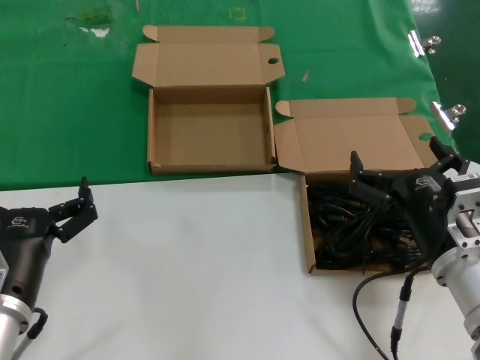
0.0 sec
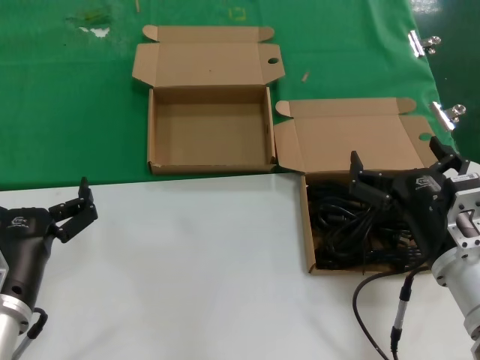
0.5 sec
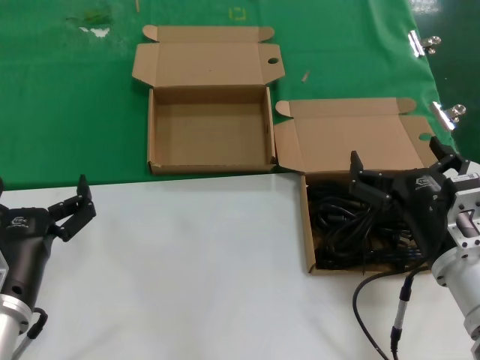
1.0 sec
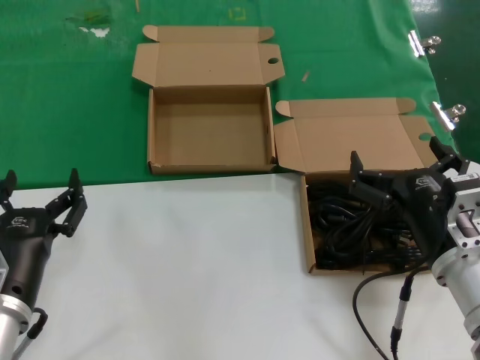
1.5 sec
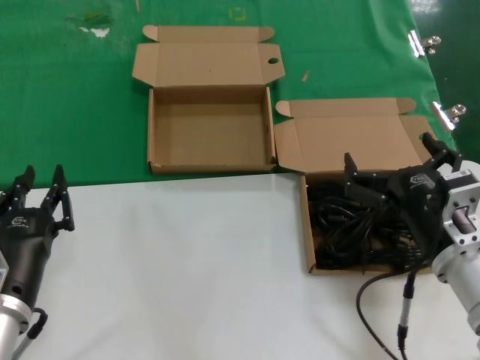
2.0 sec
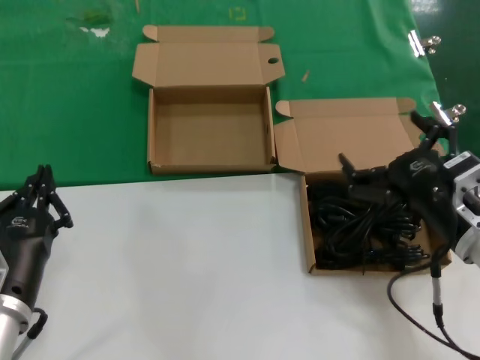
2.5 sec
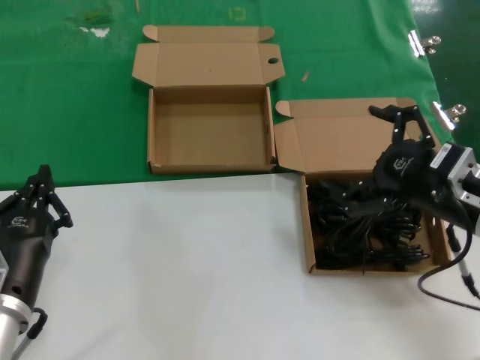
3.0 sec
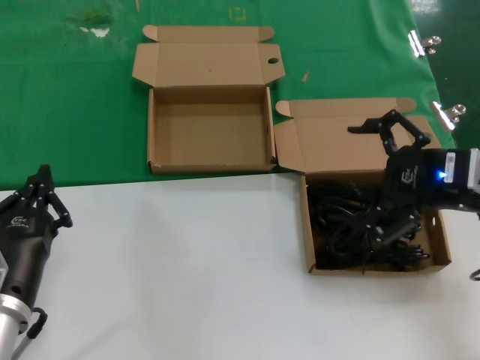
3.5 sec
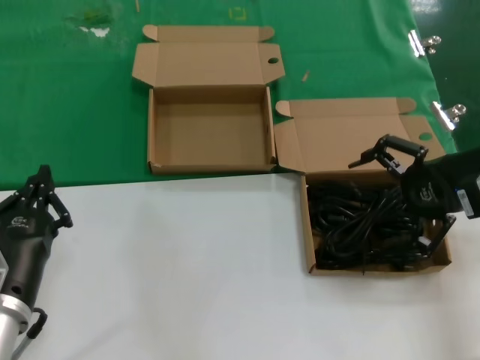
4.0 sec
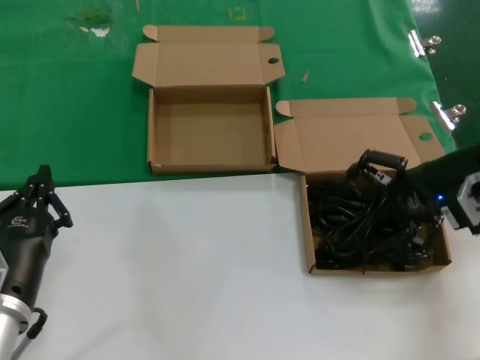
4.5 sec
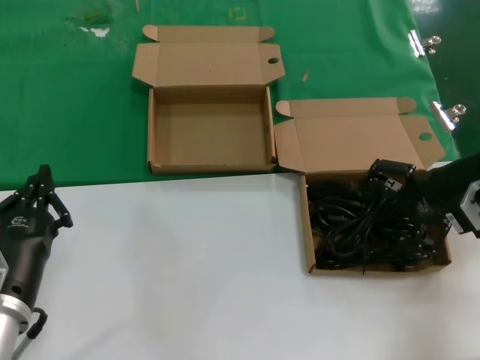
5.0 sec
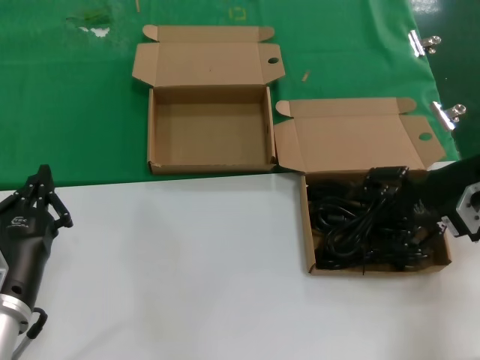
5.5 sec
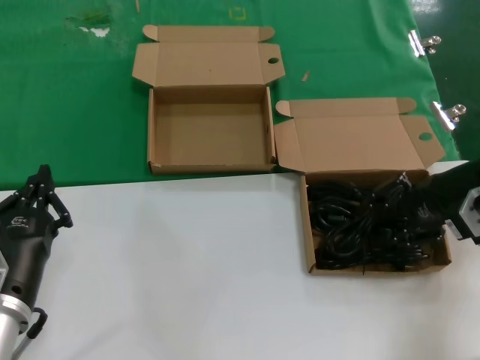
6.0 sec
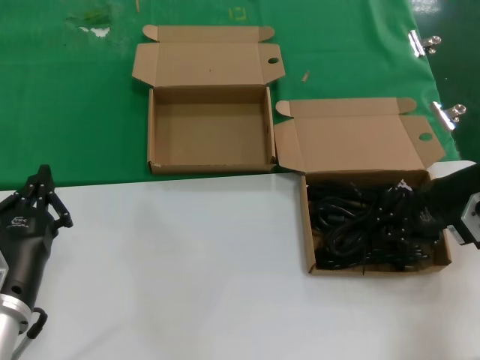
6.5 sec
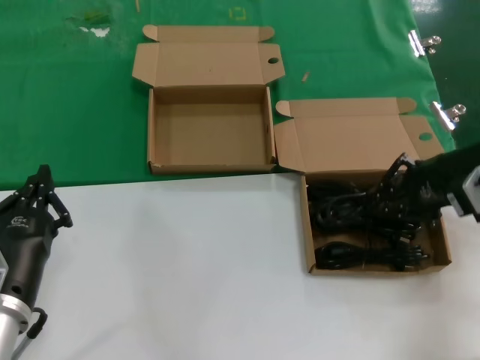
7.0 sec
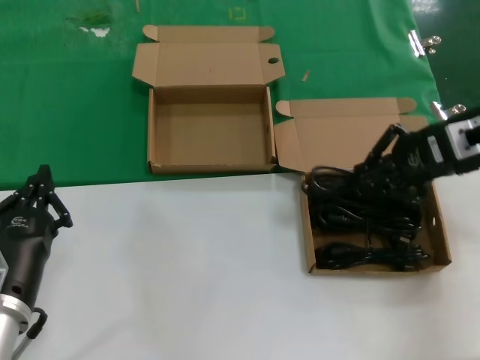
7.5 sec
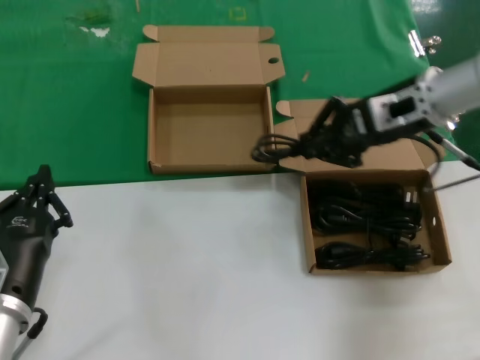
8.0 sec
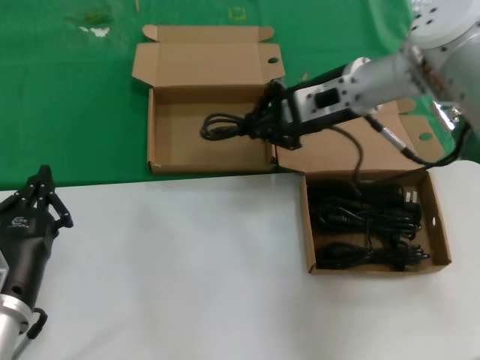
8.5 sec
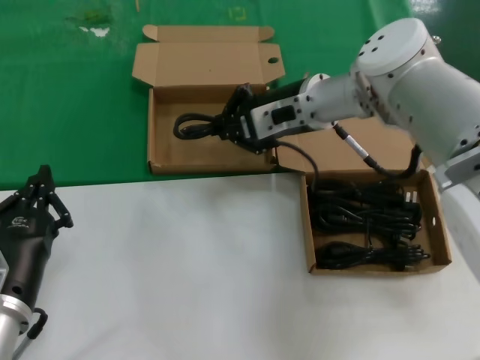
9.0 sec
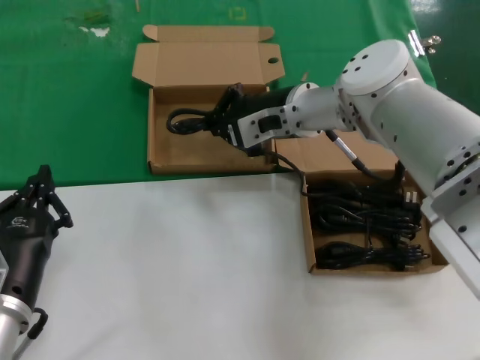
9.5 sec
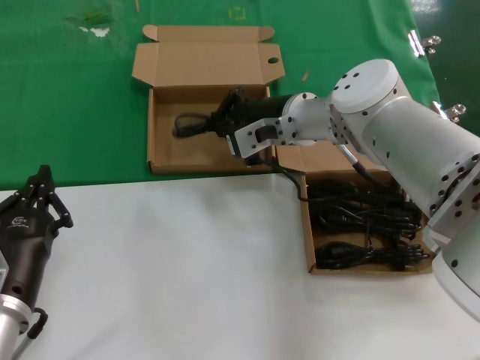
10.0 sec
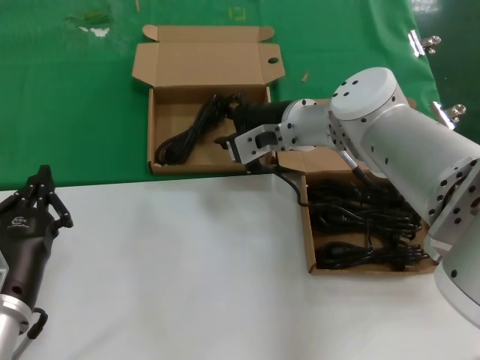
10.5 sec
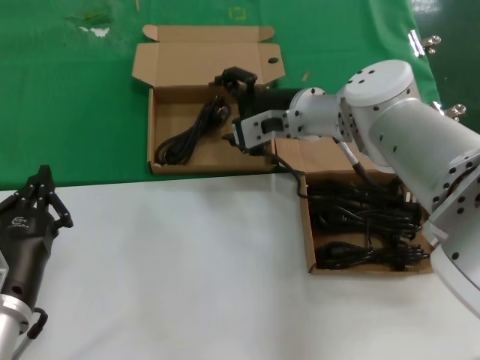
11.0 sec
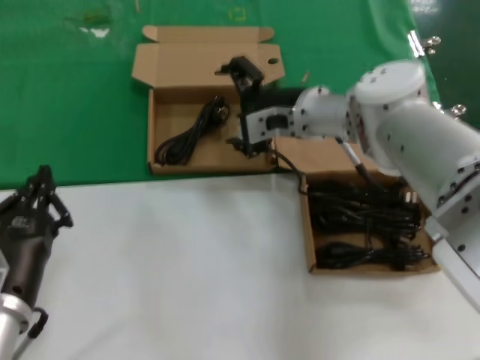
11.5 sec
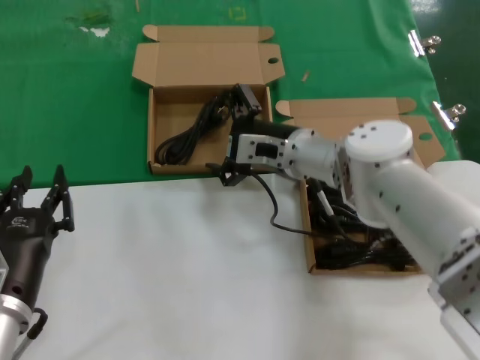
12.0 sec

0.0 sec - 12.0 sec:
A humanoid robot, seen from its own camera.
Task of the whole recording: take the parts from the box containing them and put them into an empty box.
Step, 0.0 sec - 6.5 sec: Grasp the data cable.
Step, 7.0 sec - 10.0 sec: Place the data cable in the another box.
0.0 sec - 2.0 sec: The two hands keep their place.
2.0 sec - 4.0 sec: The right hand moves upward, to the right and forward, about 20 cm.
4.0 sec - 6.0 sec: The right hand moves downward and forward, roughly 10 cm.
6.0 sec - 8.0 sec: The right hand is displaced to the left, upward and forward by roughly 15 cm.
8.0 sec - 10.0 sec: The right hand travels to the left and downward by some 20 cm.
10.0 sec - 12.0 sec: The right hand is displaced downward by approximately 5 cm.

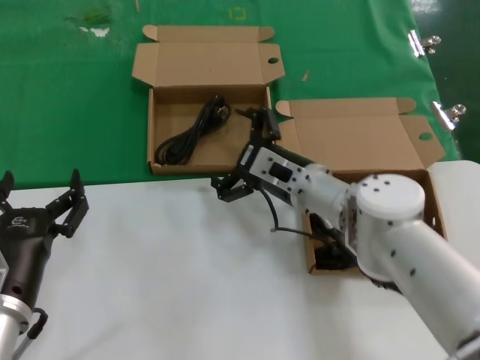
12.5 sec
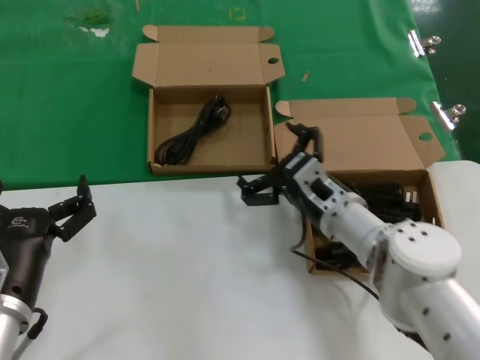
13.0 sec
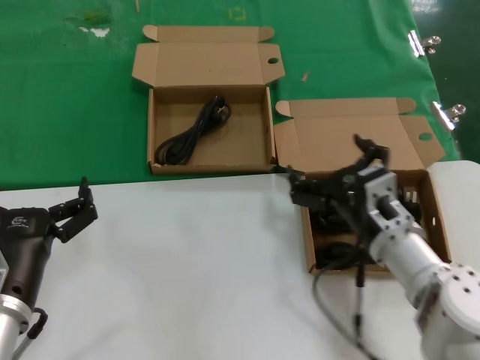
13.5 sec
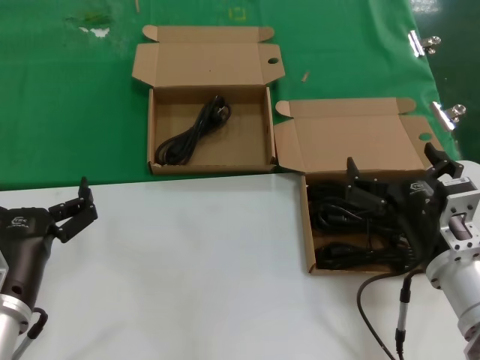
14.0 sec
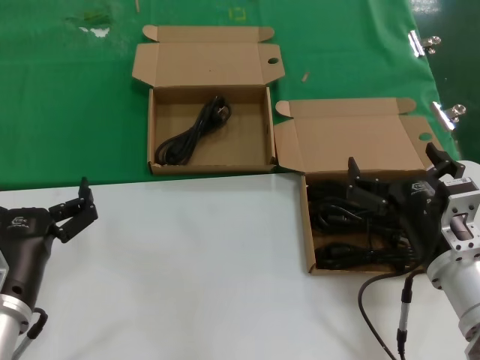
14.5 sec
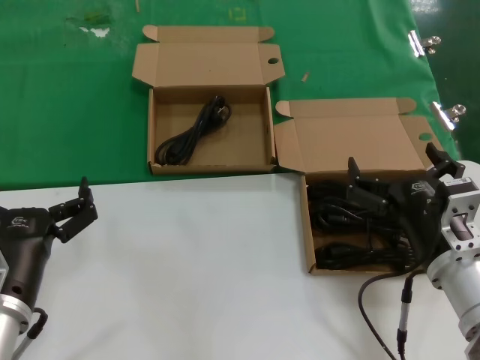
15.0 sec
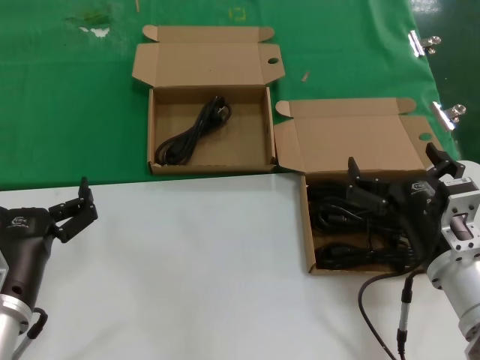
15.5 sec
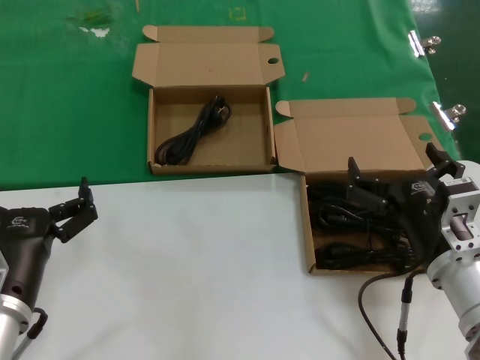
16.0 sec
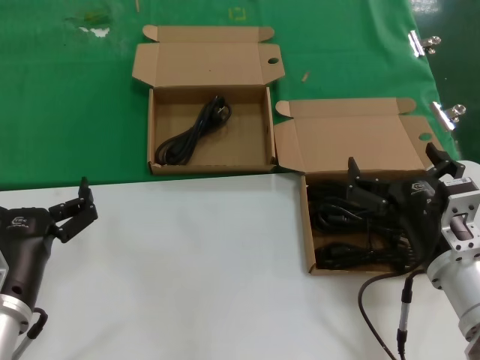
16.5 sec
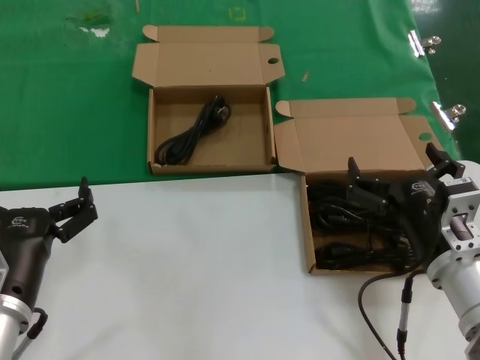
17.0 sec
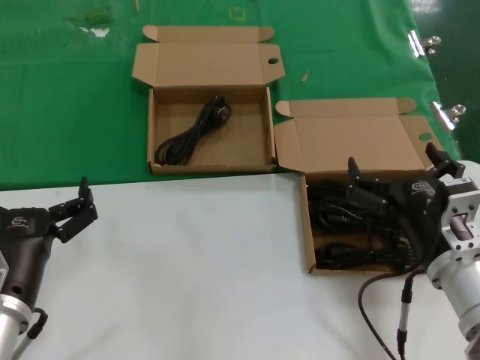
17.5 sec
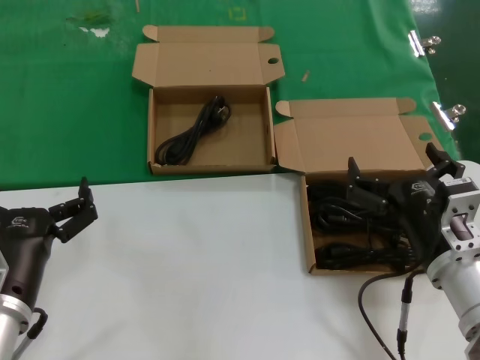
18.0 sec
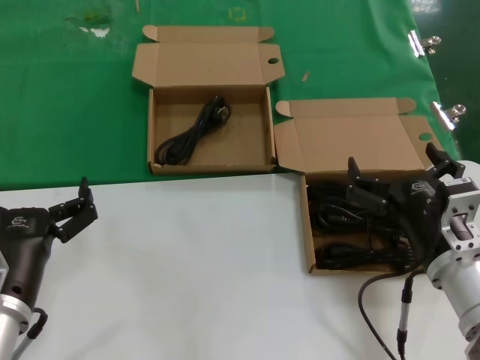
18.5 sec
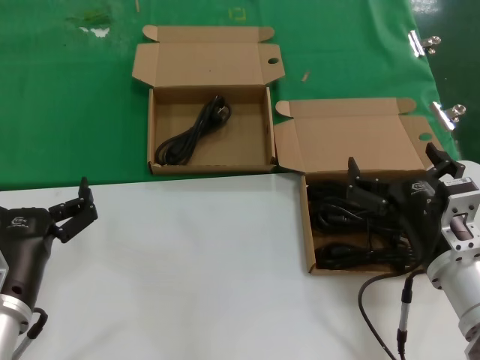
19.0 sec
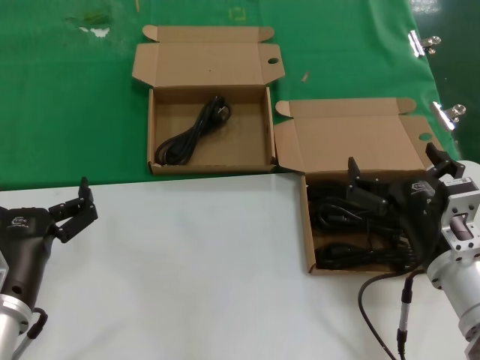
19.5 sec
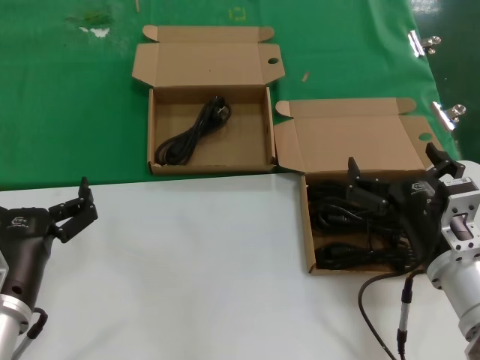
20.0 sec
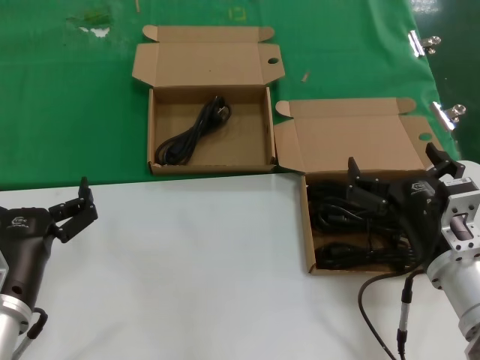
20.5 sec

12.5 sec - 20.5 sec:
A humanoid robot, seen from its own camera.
Task of the whole recording: take the parts from the box containing them and put them into an empty box.
12.5 sec - 14.5 sec: The right hand goes some 20 cm backward and to the right.
14.5 sec - 20.5 sec: The two hands keep their place.

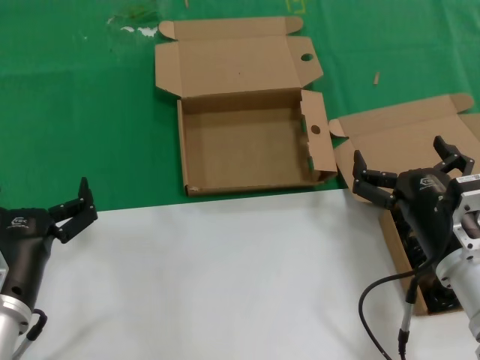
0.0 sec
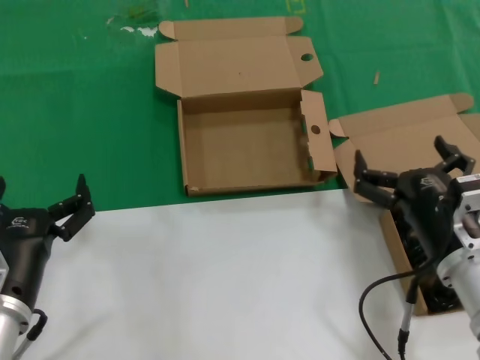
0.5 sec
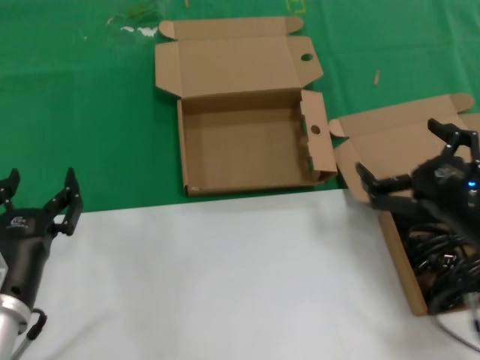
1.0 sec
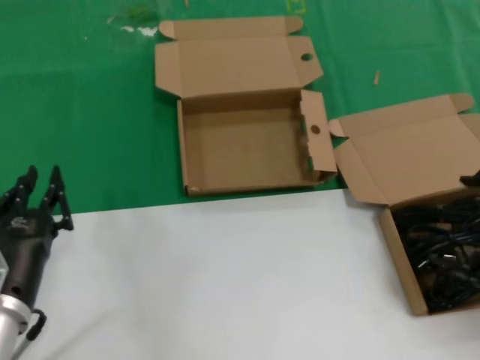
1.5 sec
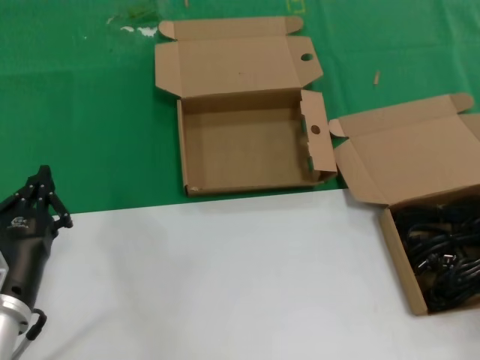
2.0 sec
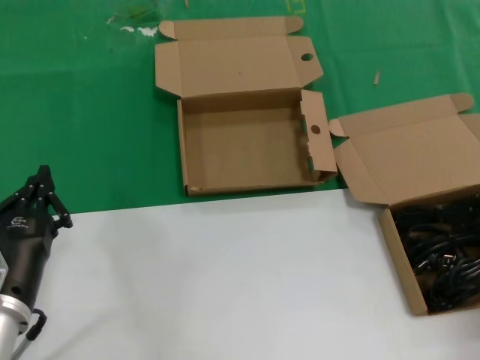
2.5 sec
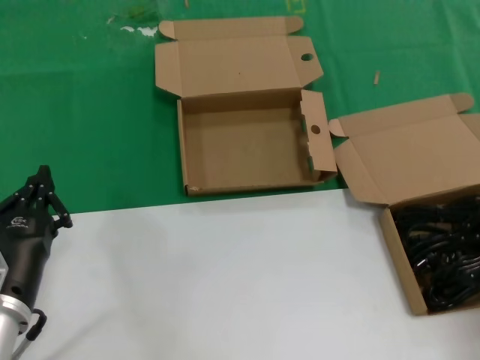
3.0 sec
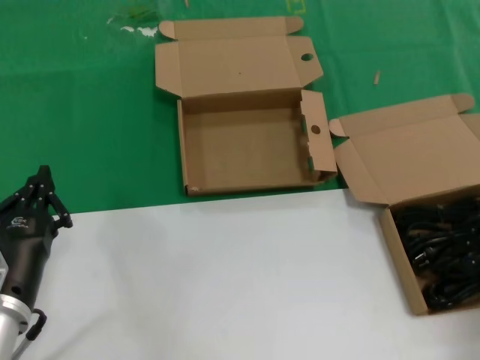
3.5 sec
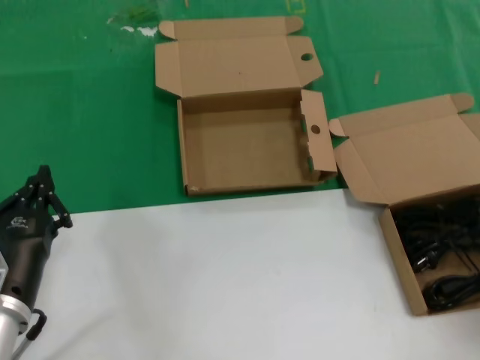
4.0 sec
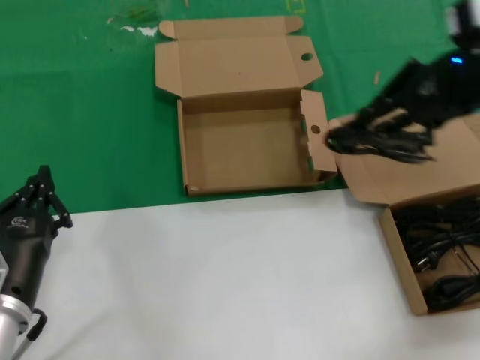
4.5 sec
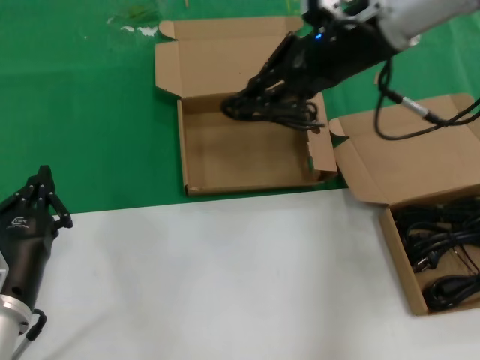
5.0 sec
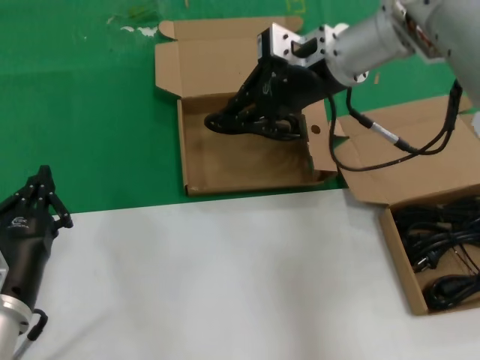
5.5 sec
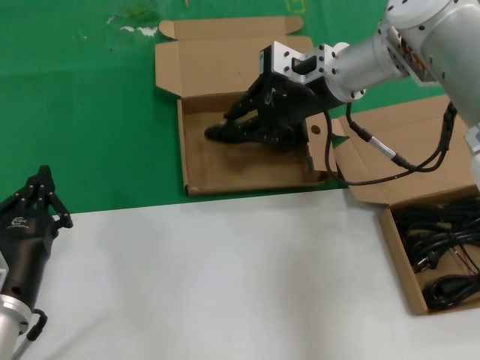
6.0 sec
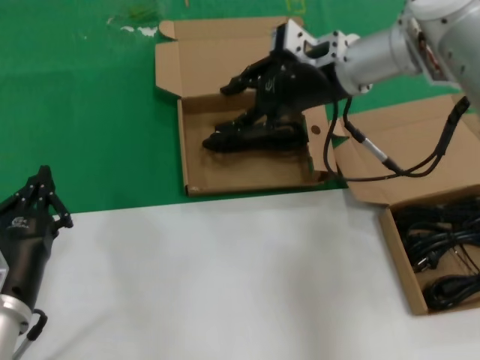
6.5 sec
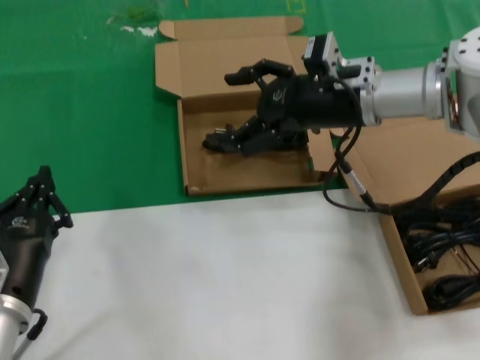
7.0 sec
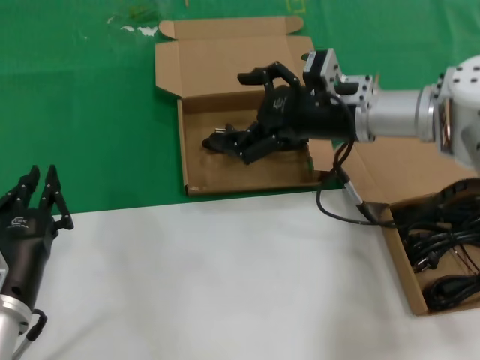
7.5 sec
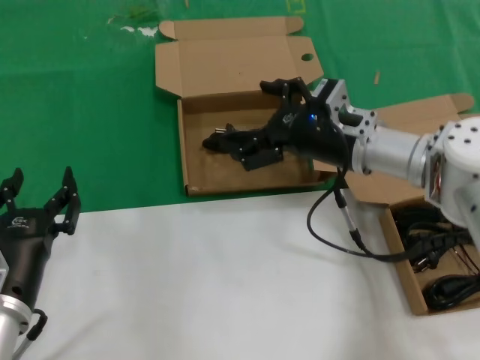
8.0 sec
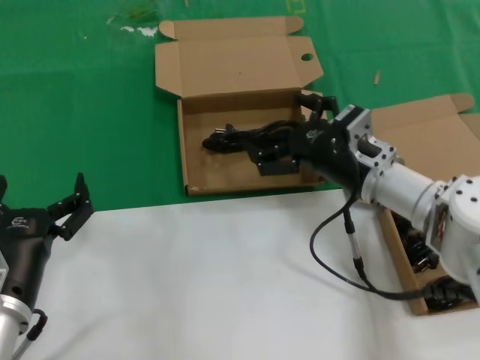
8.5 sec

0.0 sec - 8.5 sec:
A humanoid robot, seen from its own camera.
Task of the whole recording: take the parts from the box containing them and put them into an empty box.
Step, 0.0 sec - 3.0 sec: Grasp the data cable.
Step, 3.5 sec - 6.5 sec: Place the data cable in the another box.
0.0 sec - 2.0 sec: The right hand travels to the right and upward by roughly 25 cm.
4.0 sec - 6.5 sec: The right hand moves to the left and forward, some 30 cm.
6.5 sec - 8.5 sec: The right hand heads downward and backward, covering about 20 cm.
